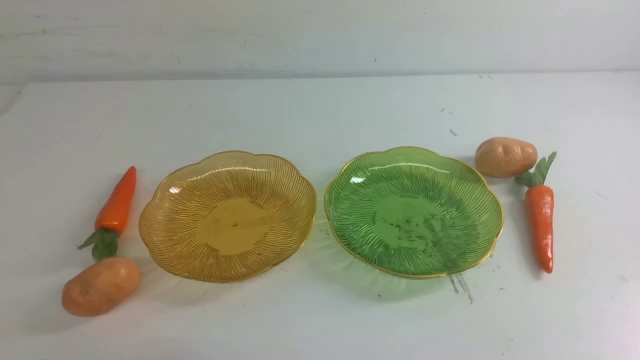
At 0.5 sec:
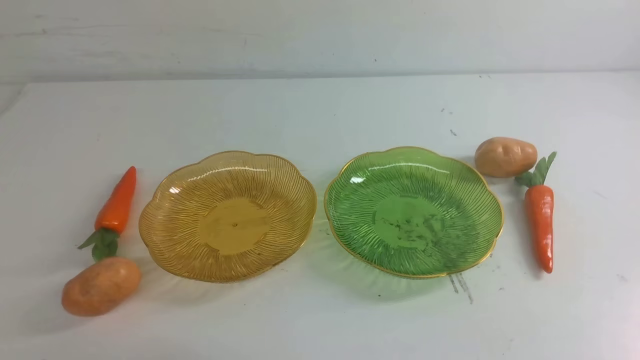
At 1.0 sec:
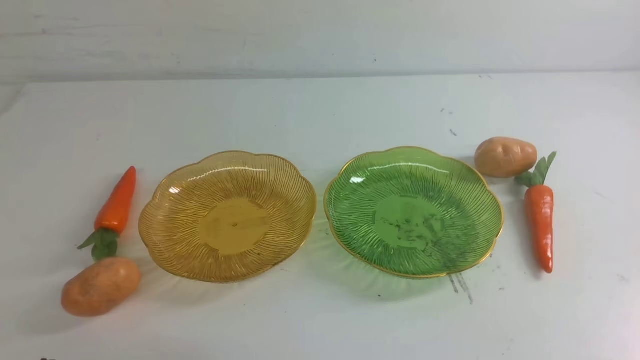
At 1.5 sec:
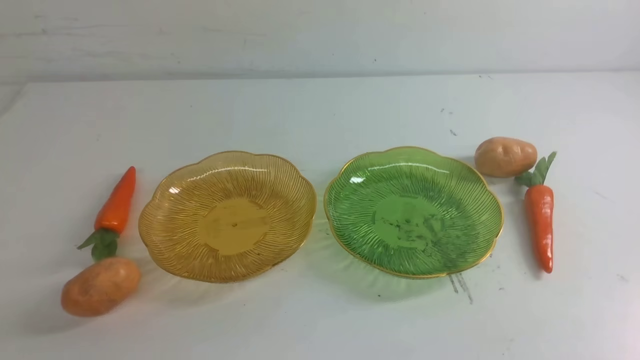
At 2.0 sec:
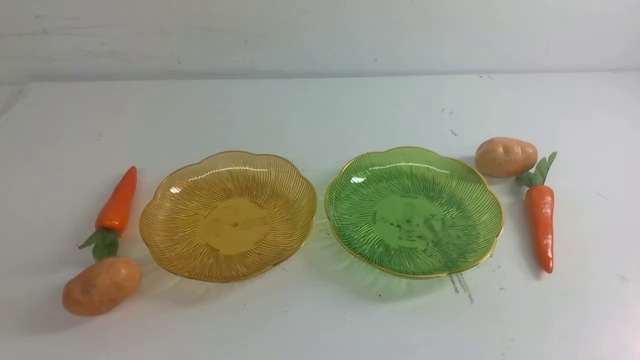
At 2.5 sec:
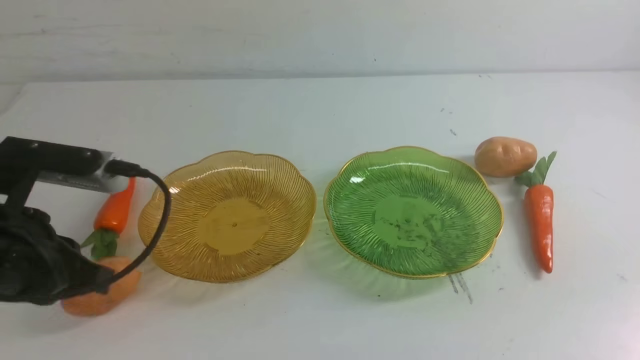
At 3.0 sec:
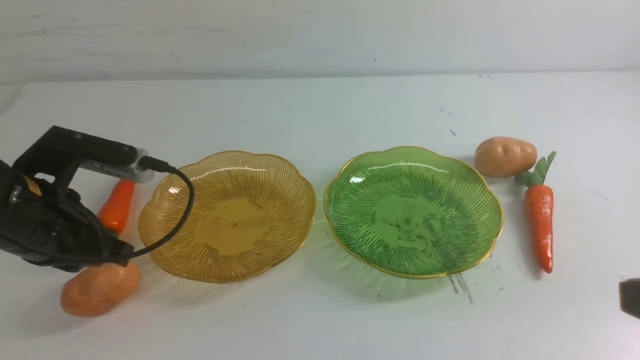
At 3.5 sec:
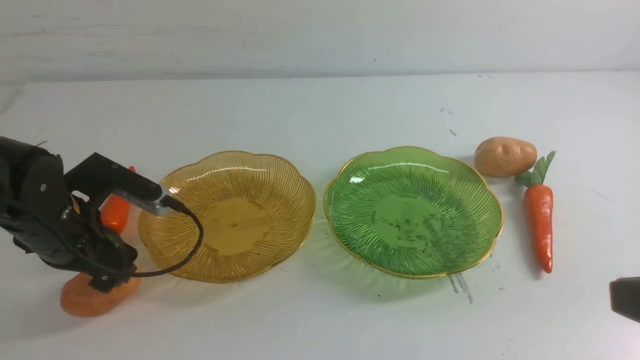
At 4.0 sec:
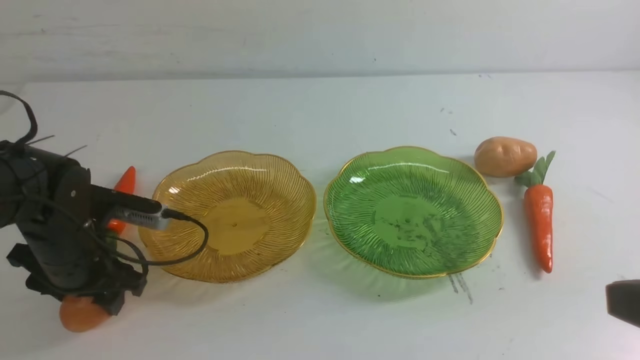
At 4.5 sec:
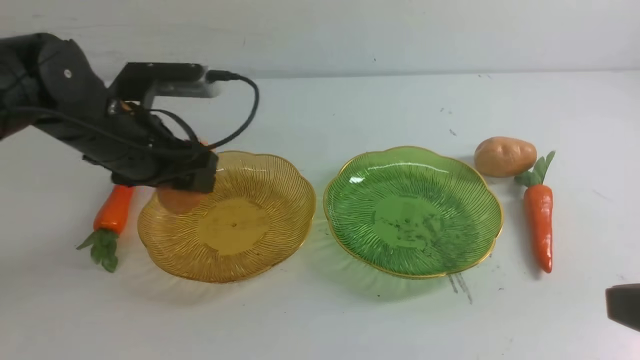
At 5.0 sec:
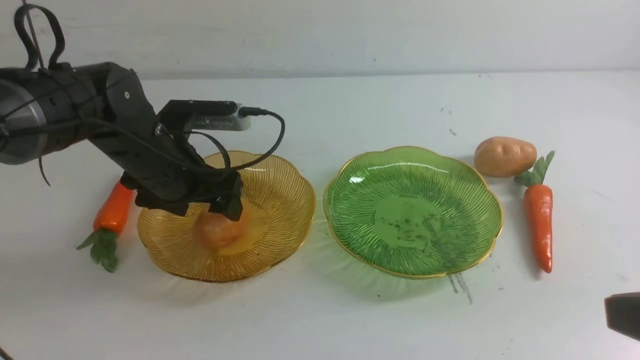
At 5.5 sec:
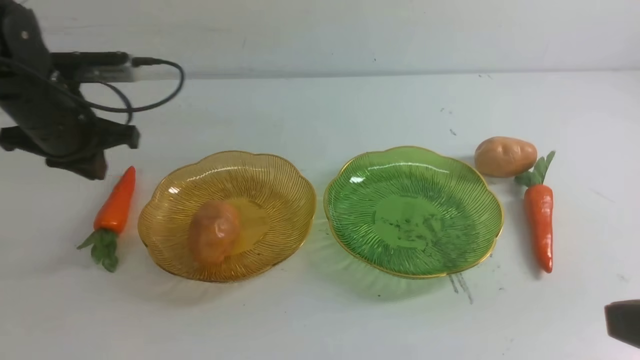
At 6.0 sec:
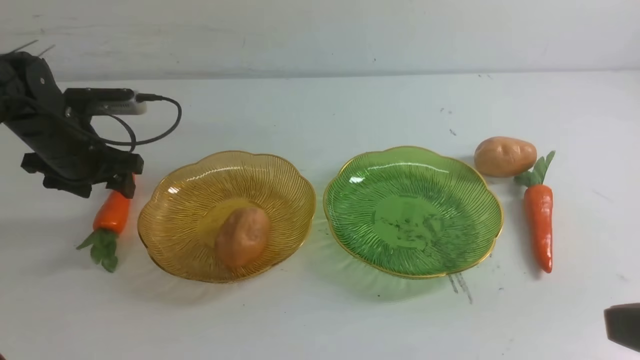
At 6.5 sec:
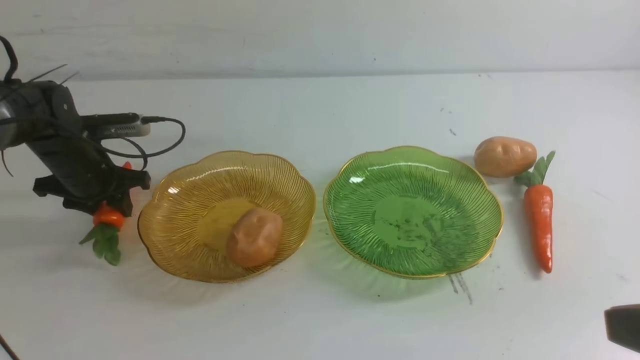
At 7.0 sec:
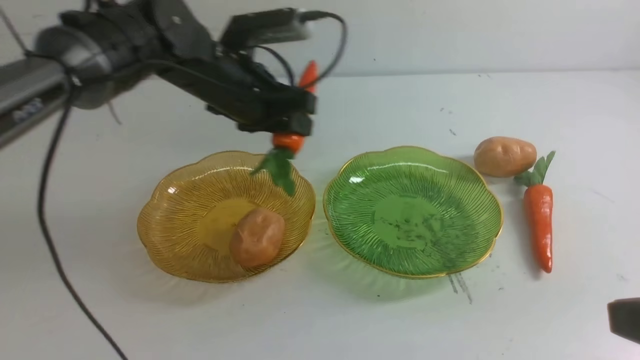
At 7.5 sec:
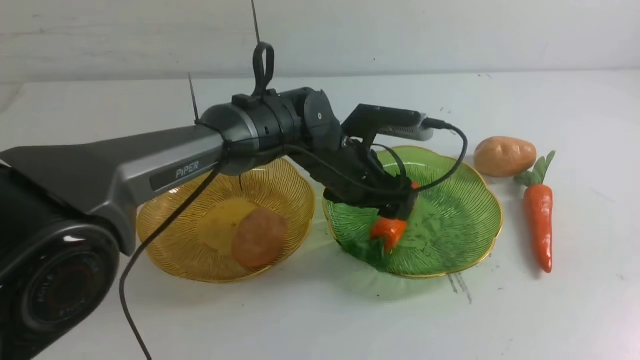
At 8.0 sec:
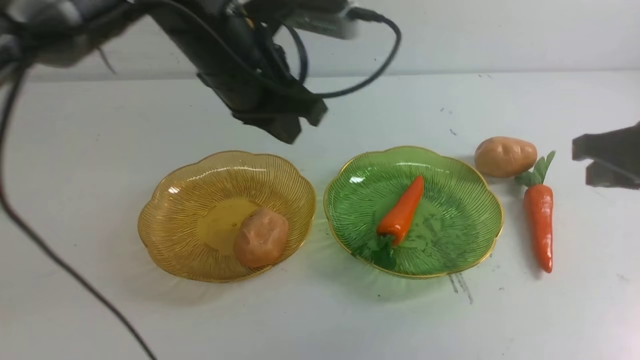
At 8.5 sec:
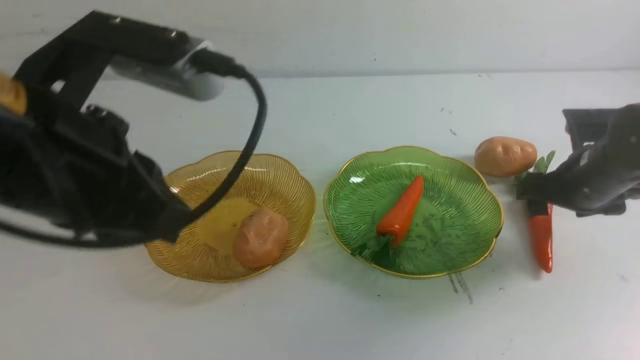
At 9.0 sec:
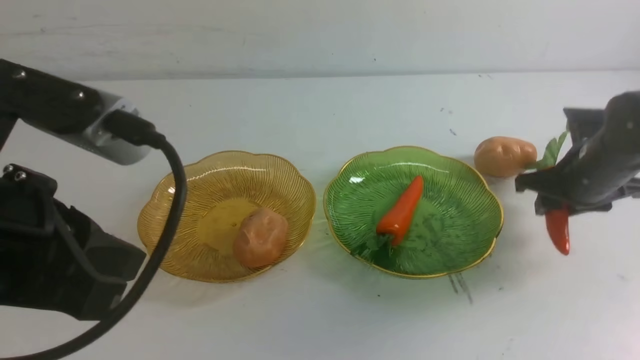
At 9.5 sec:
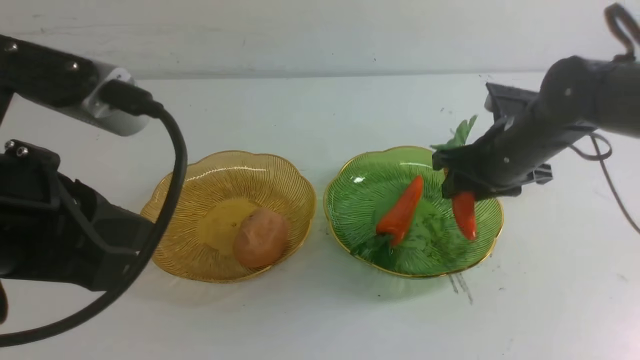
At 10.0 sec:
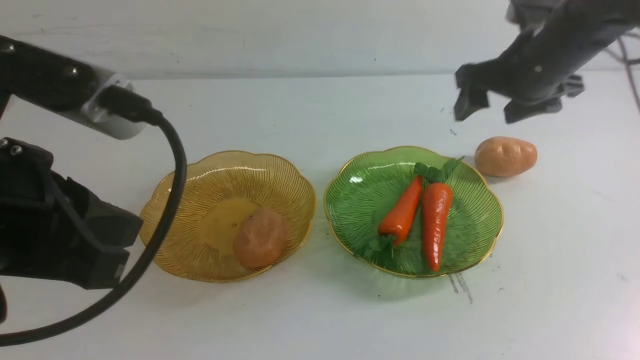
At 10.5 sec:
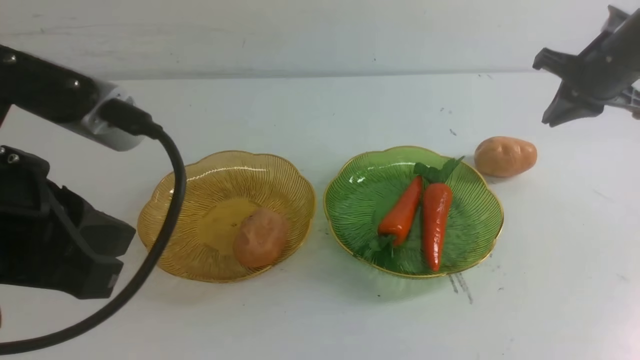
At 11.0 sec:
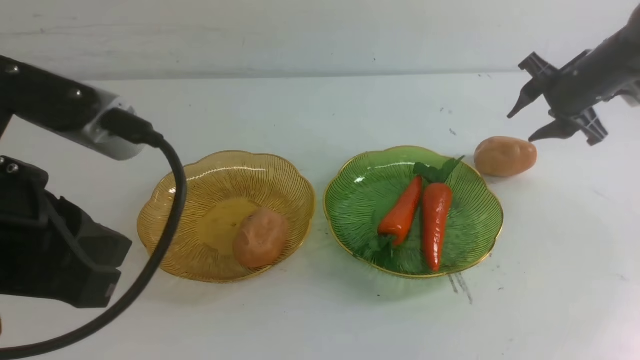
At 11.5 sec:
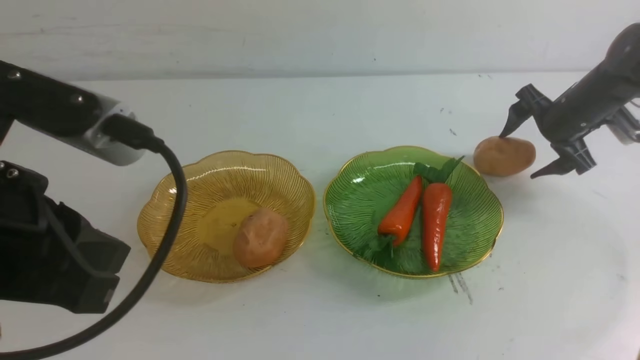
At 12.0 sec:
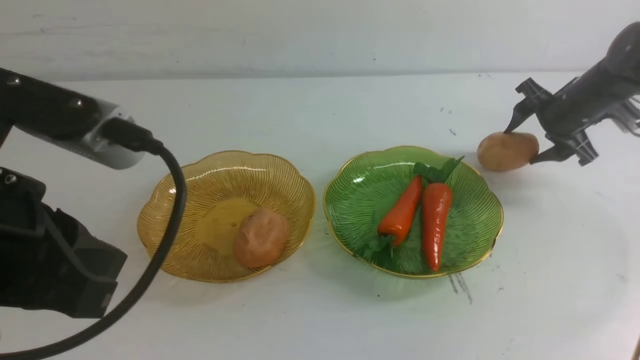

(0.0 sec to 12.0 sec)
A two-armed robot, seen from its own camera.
Step, 0.0 sec - 4.5 sec: Grab a potato with your left arm and put it on the left plate.
Step, 5.0 sec - 7.0 sec: use the left arm to grab a carrot and put it into the right plate.
Step, 8.0 sec - 9.5 sec: use the right arm to grab a carrot and put it into the right plate.
2.0 sec - 4.0 sec: The right gripper is displaced upward and to the left by roughly 15 cm, while the left gripper goes some 25 cm forward, and opens its fingers.
4.0 sec - 6.0 sec: The left gripper goes roughly 15 cm forward and to the left, and closes and opens again.
6.0 sec - 8.0 sec: The right gripper travels forward and downward by about 30 cm, and opens its fingers, while the left gripper goes approximately 30 cm upward, backward and to the right, and closes its fingers.
8.0 sec - 10.0 sec: The right gripper goes approximately 10 cm forward and upward, and closes its fingers. Meanwhile the left gripper moves backward, about 10 cm.
10.0 sec - 12.0 sec: The right gripper goes some 10 cm downward and forward, and opens.

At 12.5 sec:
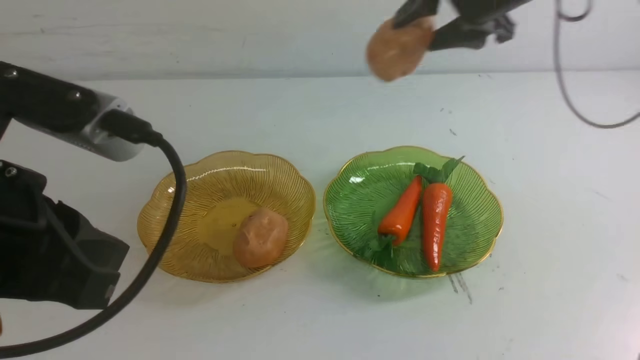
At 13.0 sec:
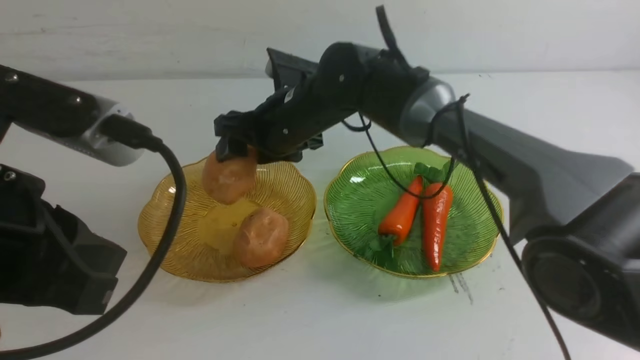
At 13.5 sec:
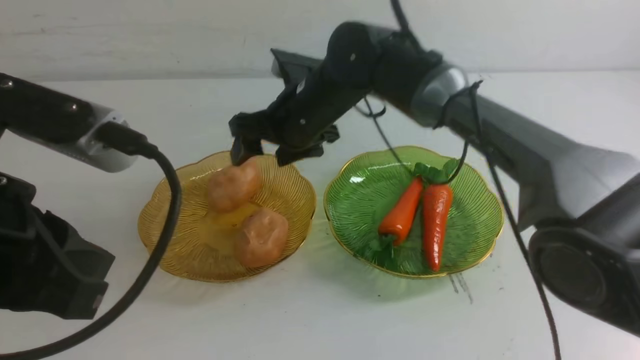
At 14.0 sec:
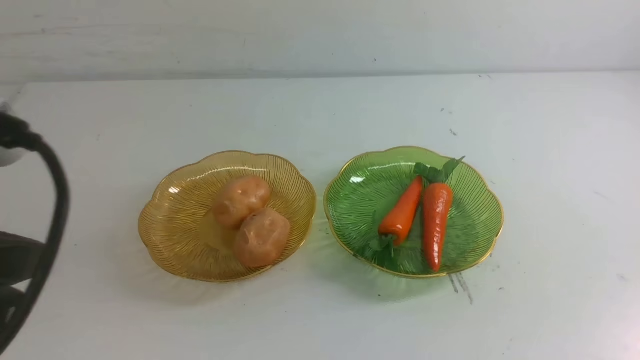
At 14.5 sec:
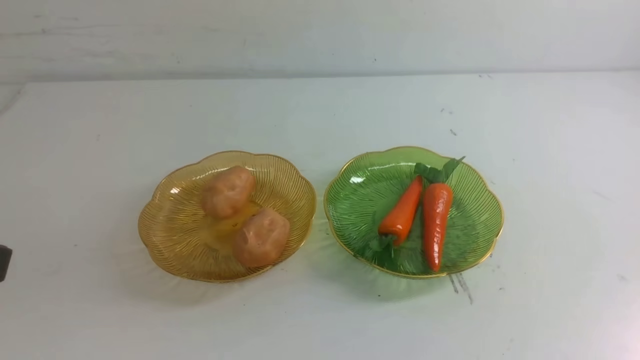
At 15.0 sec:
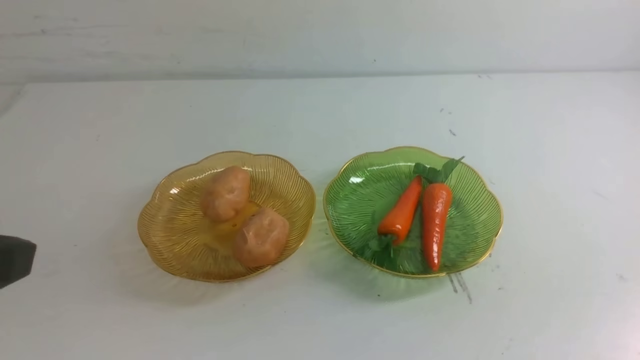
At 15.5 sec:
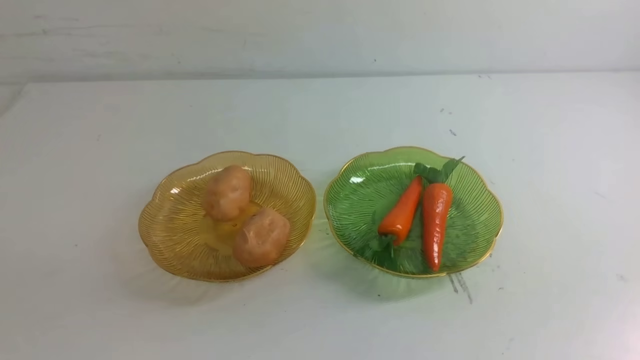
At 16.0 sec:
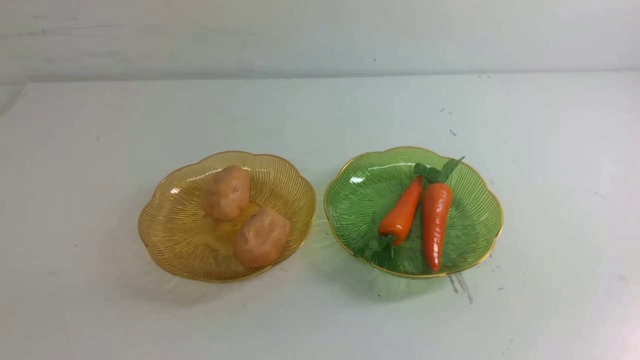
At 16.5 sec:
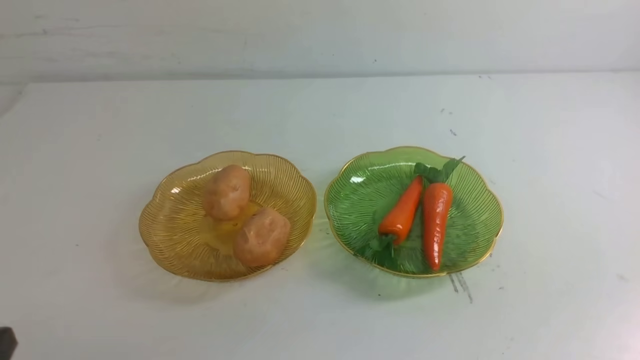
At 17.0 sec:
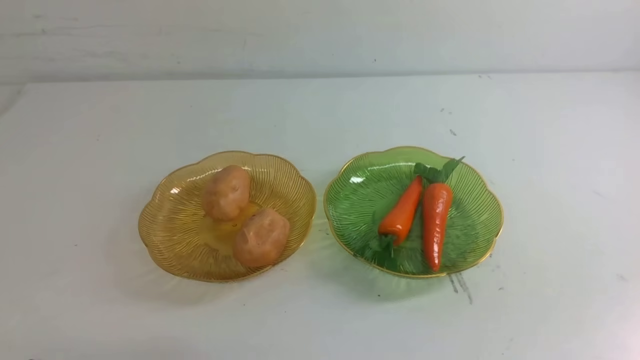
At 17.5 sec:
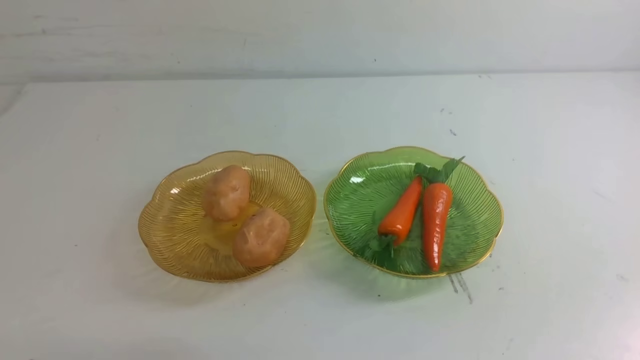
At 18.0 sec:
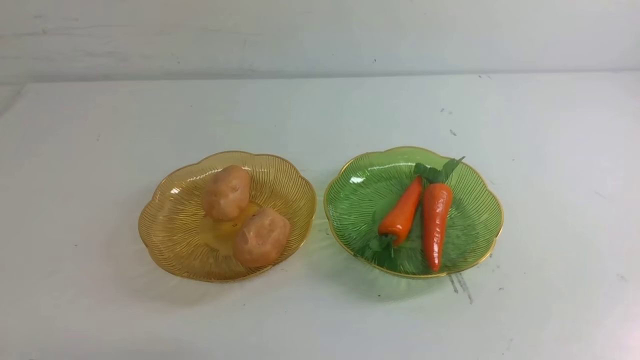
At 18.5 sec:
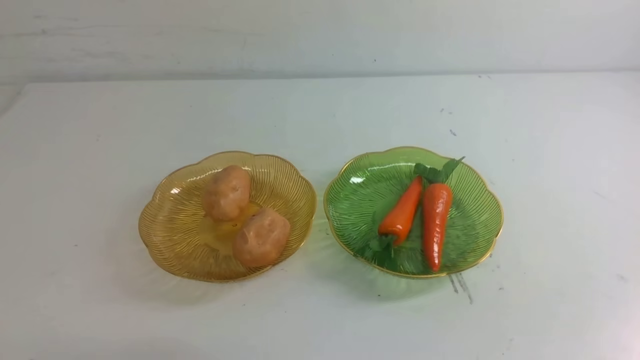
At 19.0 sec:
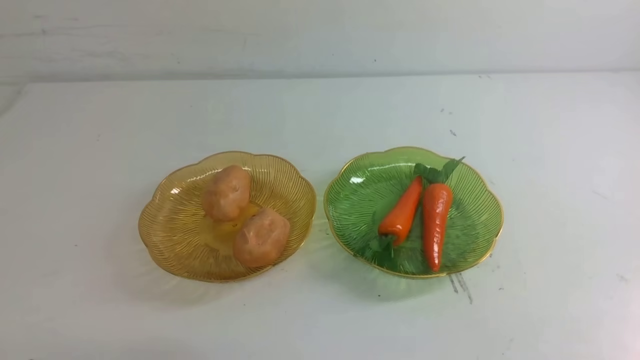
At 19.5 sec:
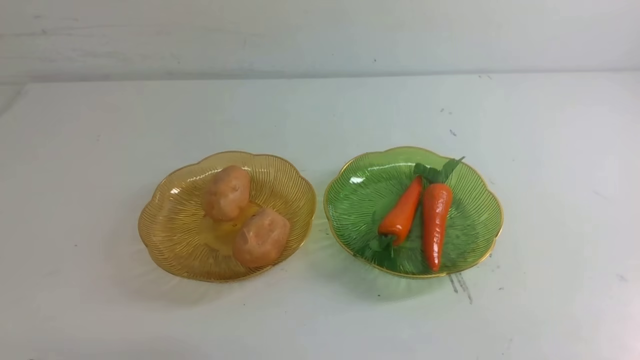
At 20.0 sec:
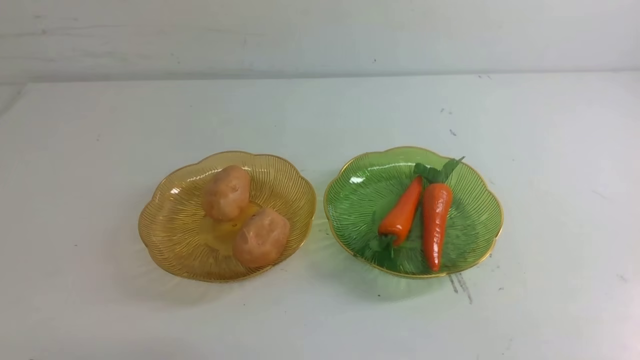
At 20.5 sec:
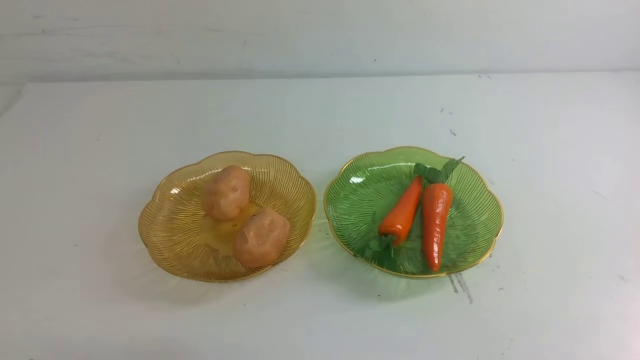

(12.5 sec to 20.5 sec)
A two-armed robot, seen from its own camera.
12.5 sec - 14.5 sec: The right gripper moves backward, approximately 40 cm, and closes its fingers. The left gripper travels backward by approximately 5 cm.
